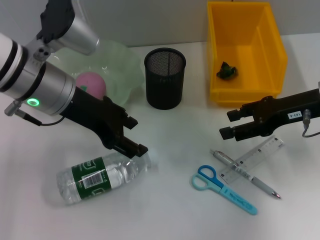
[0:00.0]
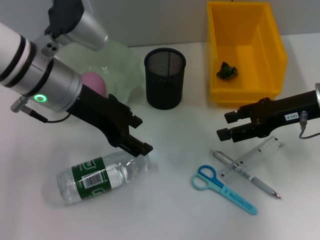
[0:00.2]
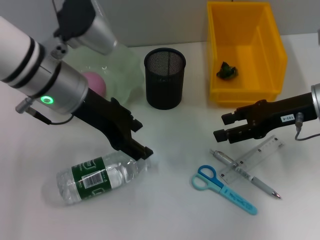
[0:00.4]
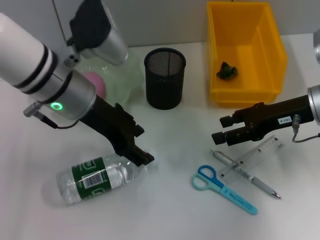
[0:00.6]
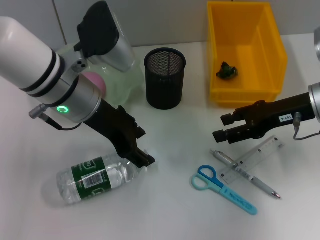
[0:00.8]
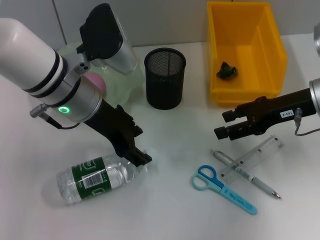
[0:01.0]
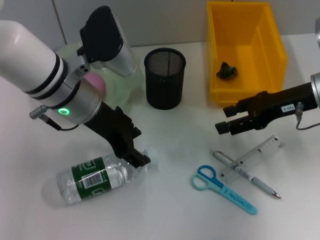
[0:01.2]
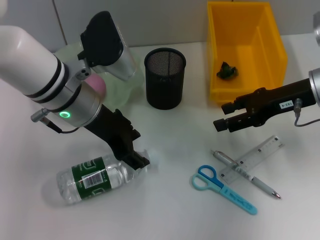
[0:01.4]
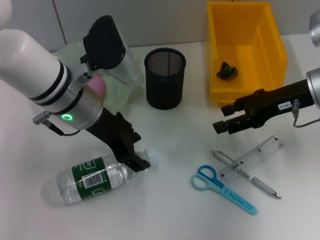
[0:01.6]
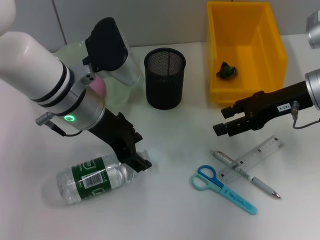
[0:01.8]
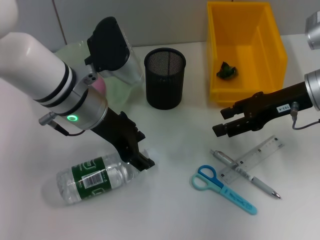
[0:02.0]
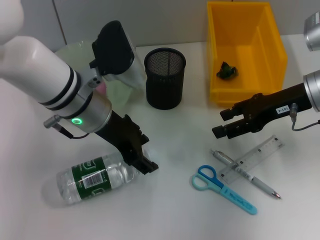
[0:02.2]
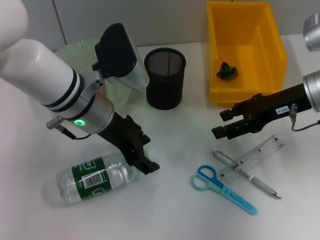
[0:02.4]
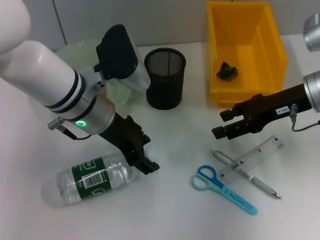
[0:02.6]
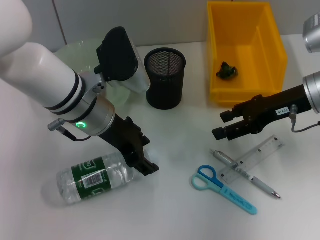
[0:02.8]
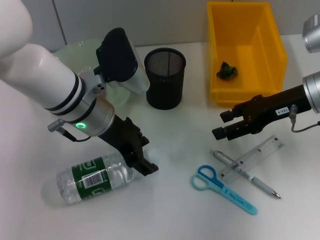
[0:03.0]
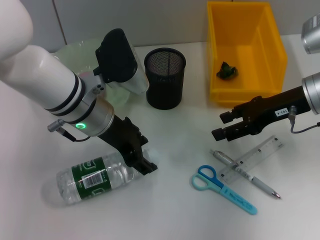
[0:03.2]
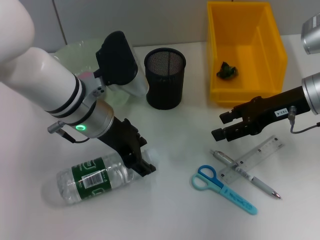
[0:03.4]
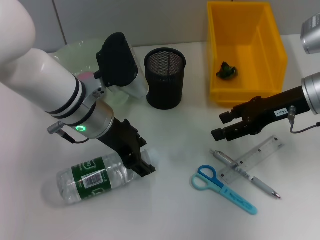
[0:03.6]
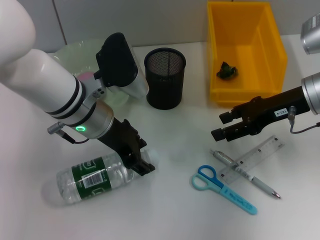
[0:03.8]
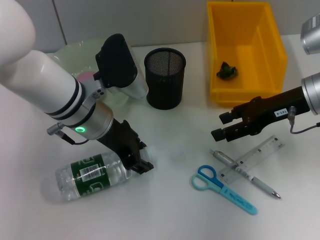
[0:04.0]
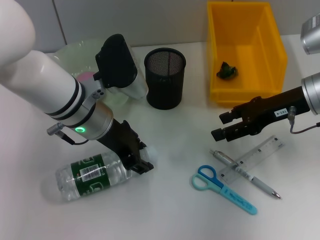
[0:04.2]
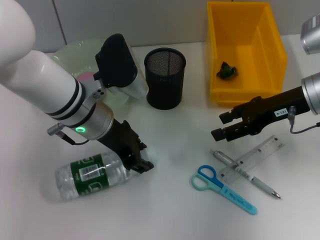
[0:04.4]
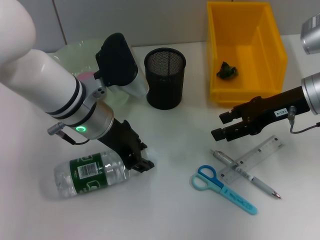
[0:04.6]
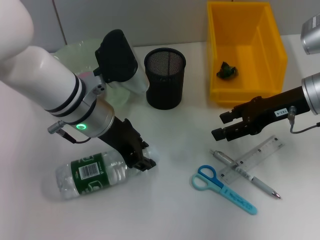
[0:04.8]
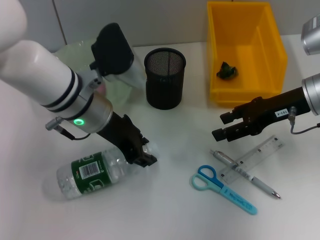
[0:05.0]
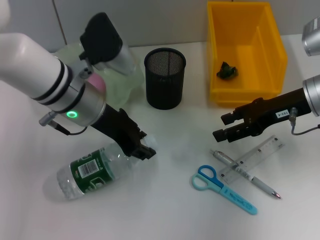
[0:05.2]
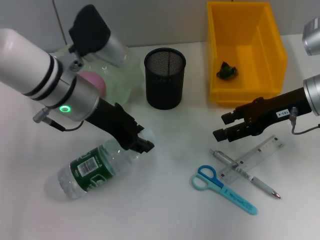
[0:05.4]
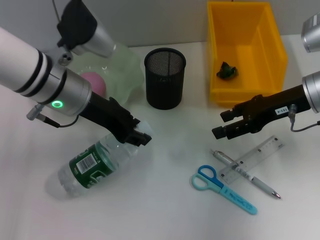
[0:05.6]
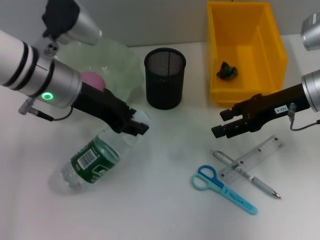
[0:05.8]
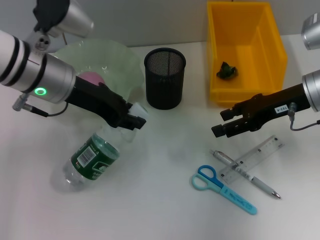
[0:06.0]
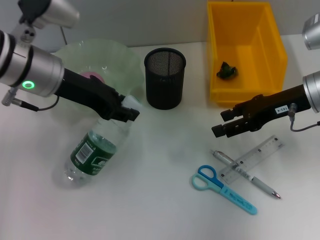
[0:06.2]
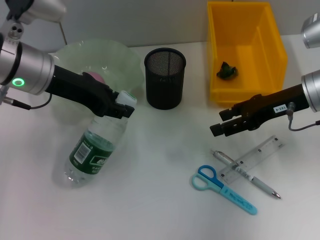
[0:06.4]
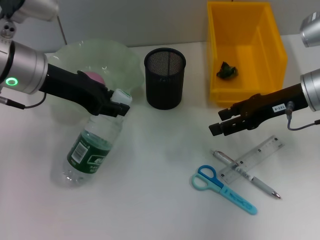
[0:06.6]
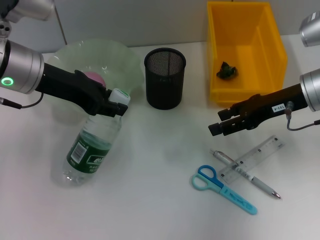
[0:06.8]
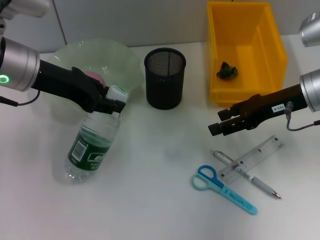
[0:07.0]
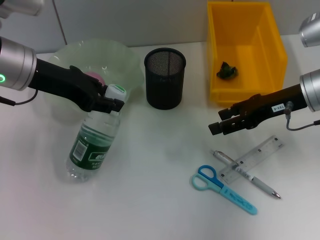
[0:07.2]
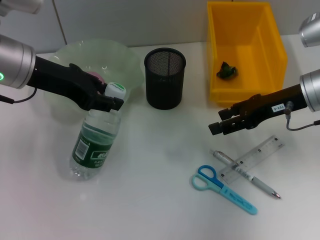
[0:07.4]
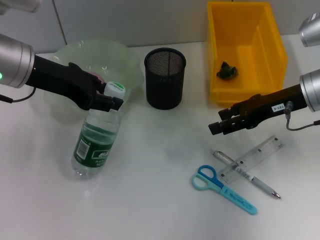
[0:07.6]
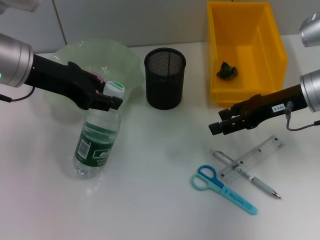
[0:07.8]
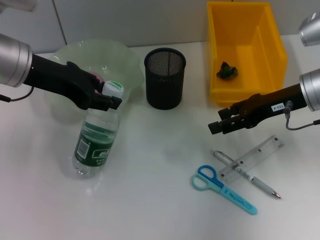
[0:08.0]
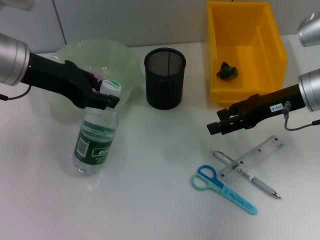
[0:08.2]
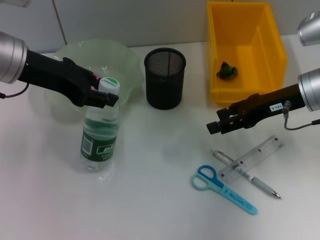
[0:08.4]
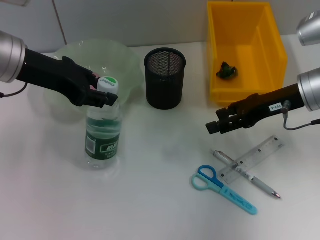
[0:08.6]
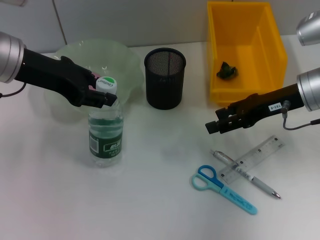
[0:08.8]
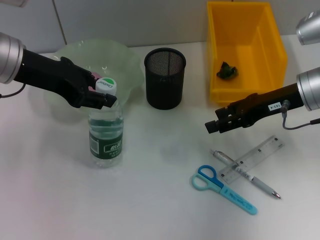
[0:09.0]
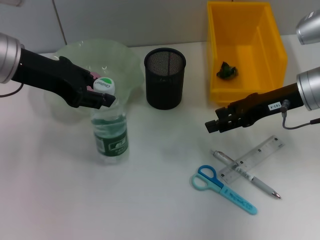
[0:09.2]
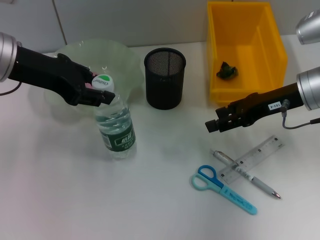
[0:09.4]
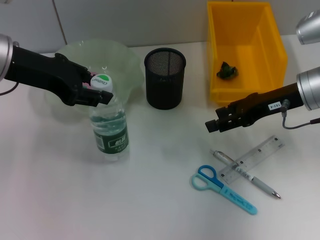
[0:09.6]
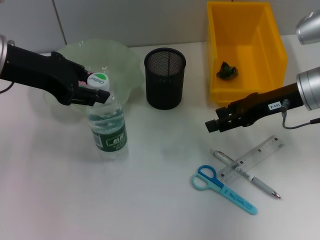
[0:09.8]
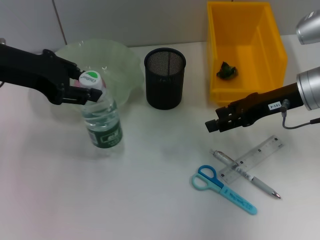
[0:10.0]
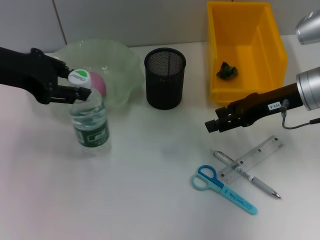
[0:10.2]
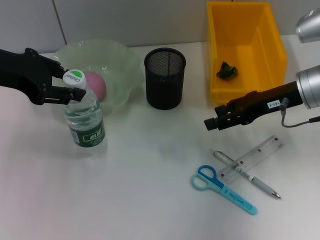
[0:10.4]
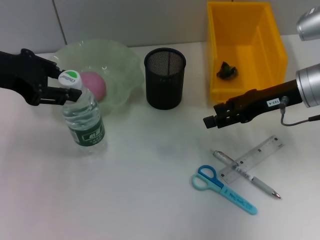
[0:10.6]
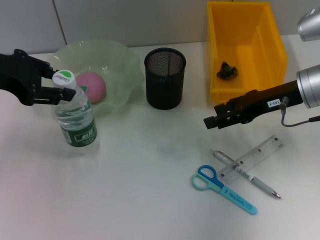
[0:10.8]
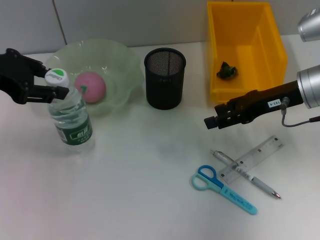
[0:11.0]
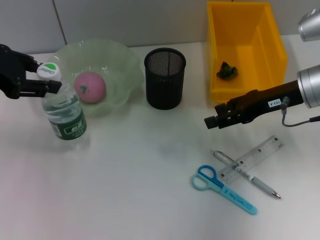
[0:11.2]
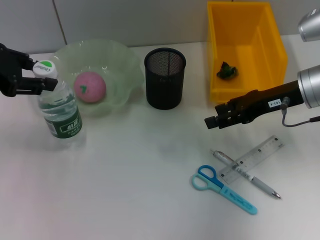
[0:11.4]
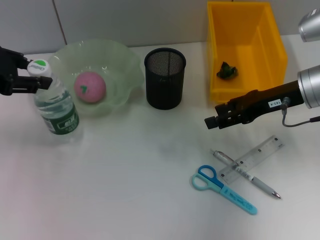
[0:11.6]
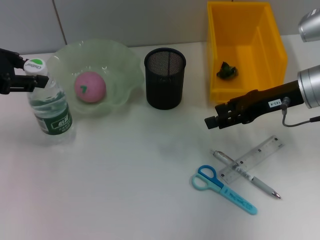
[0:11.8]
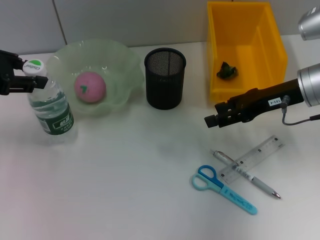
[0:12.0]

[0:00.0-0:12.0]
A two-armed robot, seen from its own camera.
Step, 0:00.0 to 0:04.6: Grab the water bottle with the left hand.
0:00.0 to 0:01.6: The grippers stay close to where they were, moving slightly.
0:01.6 to 0:03.0: There are only small adjustments of the grippers.
0:03.0 to 0:04.4: The left gripper closes up.
0:04.4 to 0:06.0: The left gripper travels to the left by roughly 5 cm.
0:06.0 to 0:07.6: The left gripper changes place by some 5 cm.
0:07.6 to 0:10.4: The grippers move only a little.
0:10.4 to 0:12.0: The grippers move only a little.

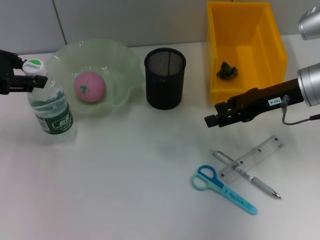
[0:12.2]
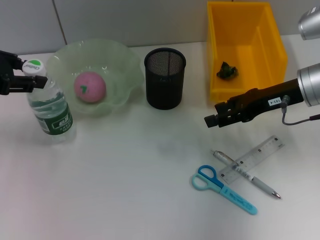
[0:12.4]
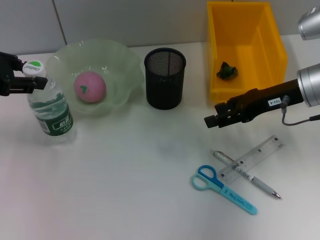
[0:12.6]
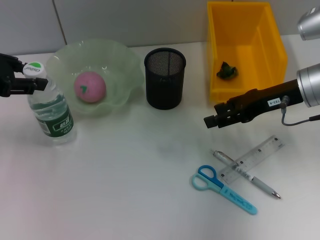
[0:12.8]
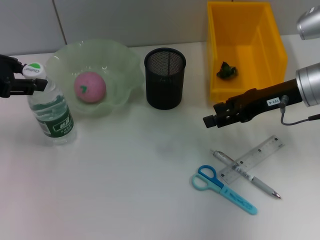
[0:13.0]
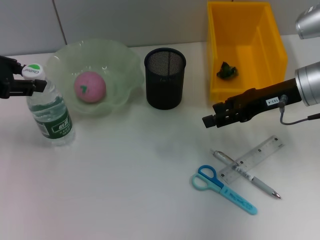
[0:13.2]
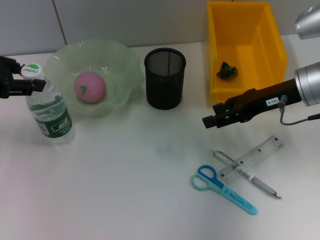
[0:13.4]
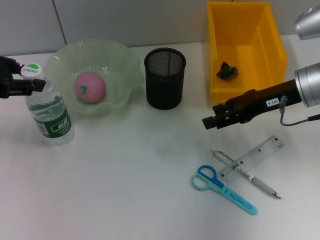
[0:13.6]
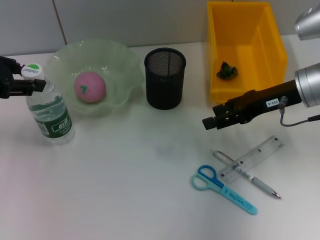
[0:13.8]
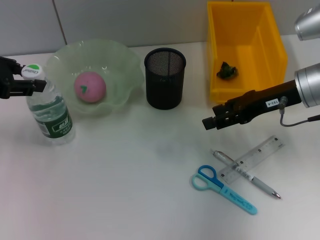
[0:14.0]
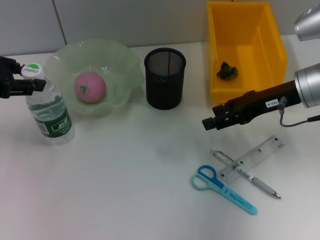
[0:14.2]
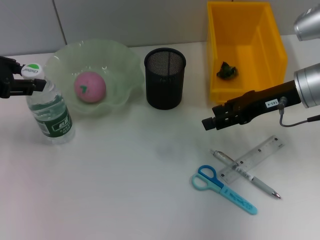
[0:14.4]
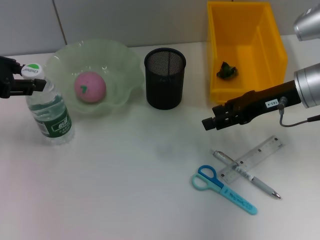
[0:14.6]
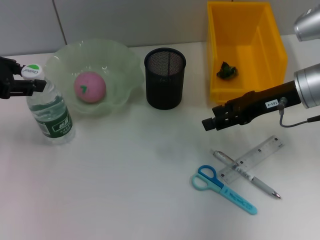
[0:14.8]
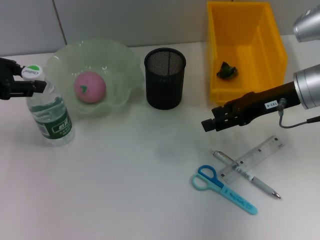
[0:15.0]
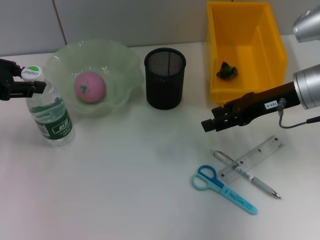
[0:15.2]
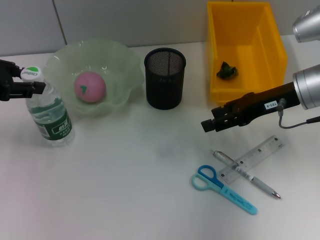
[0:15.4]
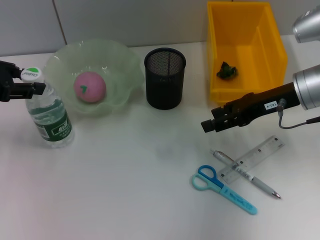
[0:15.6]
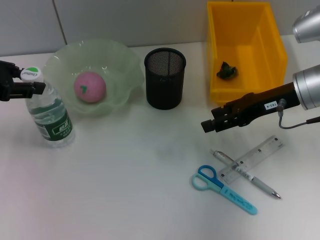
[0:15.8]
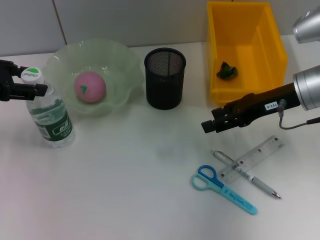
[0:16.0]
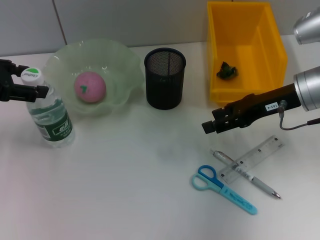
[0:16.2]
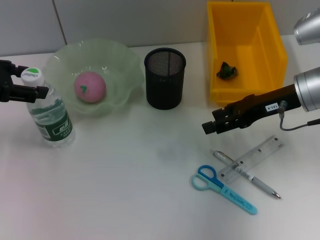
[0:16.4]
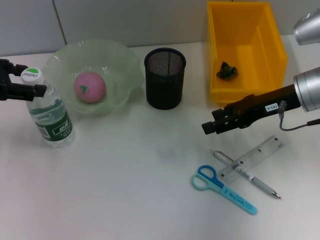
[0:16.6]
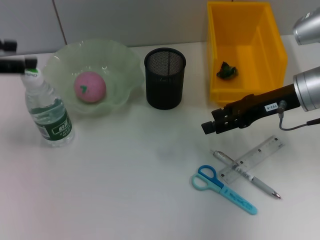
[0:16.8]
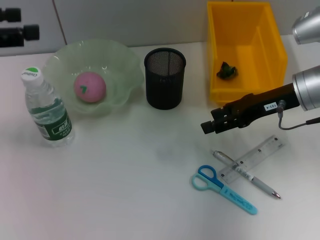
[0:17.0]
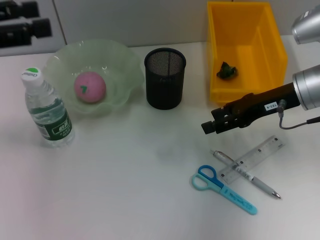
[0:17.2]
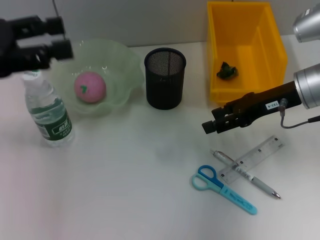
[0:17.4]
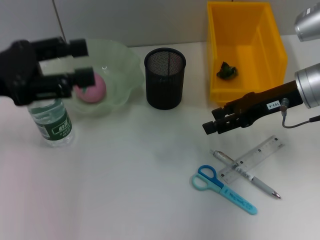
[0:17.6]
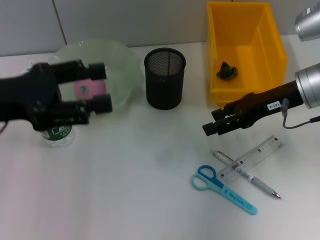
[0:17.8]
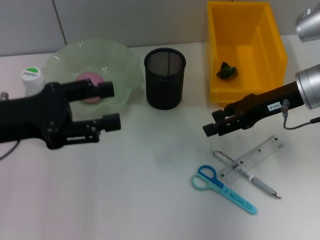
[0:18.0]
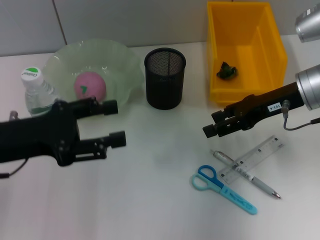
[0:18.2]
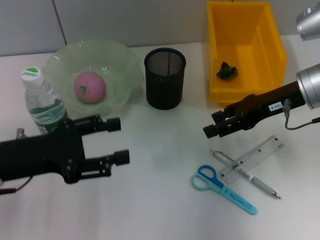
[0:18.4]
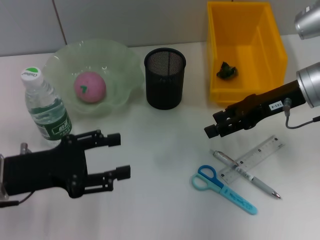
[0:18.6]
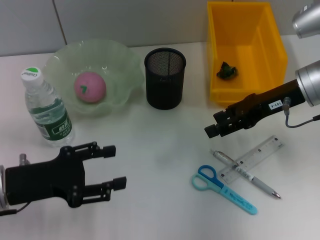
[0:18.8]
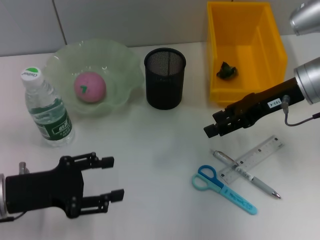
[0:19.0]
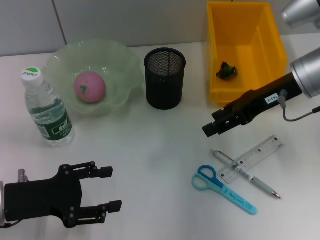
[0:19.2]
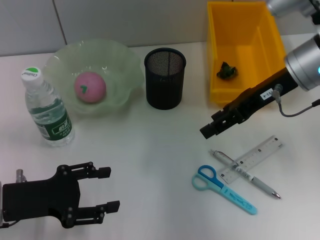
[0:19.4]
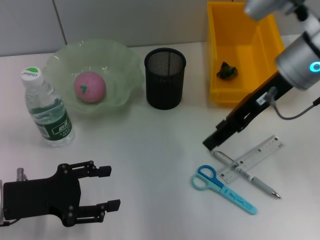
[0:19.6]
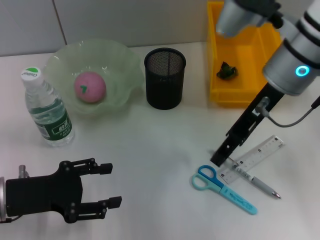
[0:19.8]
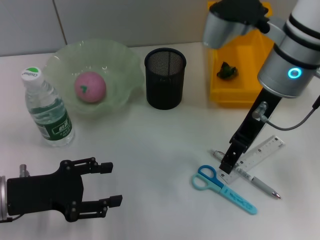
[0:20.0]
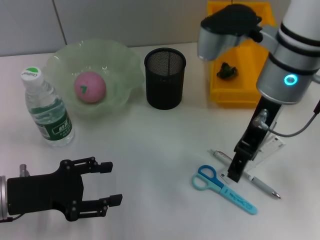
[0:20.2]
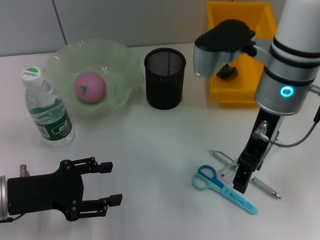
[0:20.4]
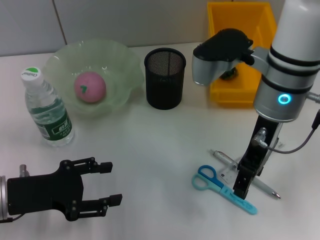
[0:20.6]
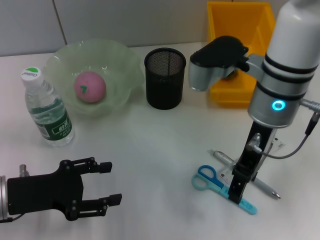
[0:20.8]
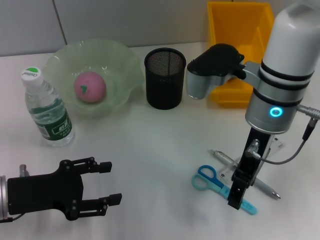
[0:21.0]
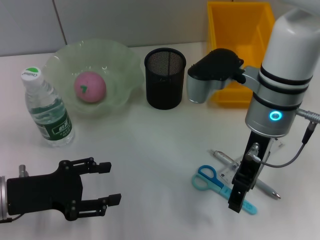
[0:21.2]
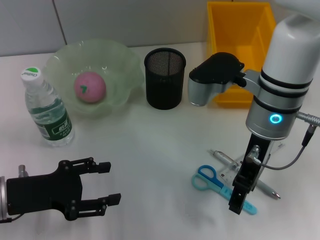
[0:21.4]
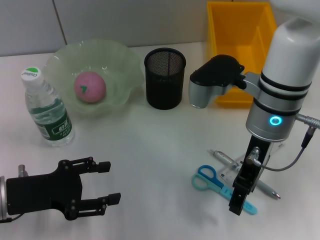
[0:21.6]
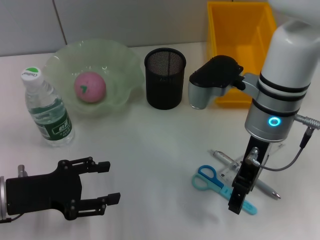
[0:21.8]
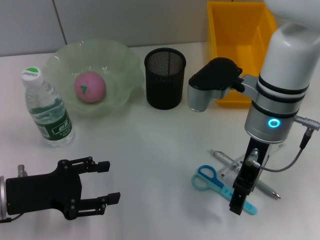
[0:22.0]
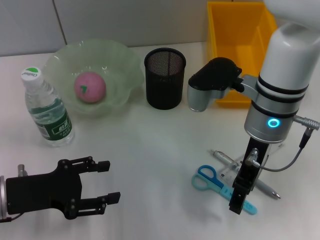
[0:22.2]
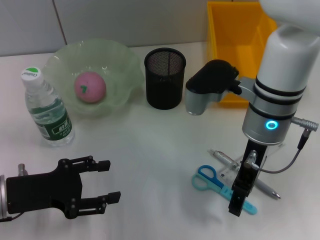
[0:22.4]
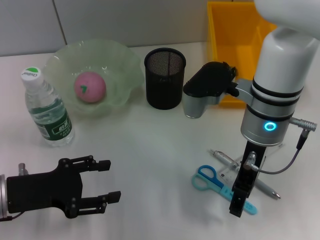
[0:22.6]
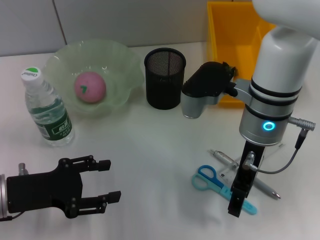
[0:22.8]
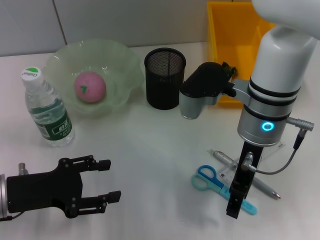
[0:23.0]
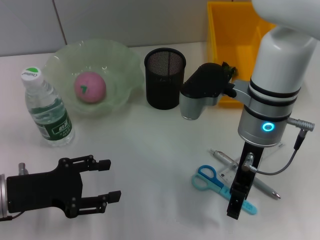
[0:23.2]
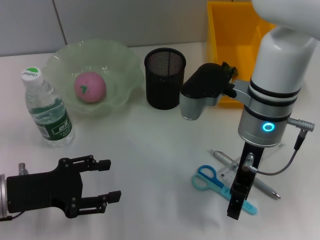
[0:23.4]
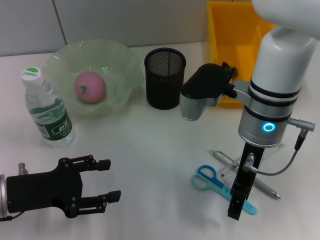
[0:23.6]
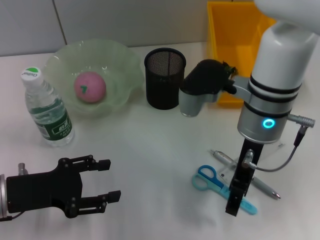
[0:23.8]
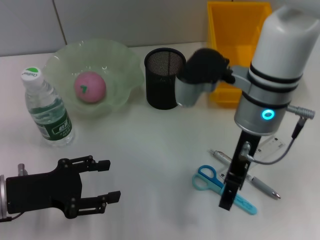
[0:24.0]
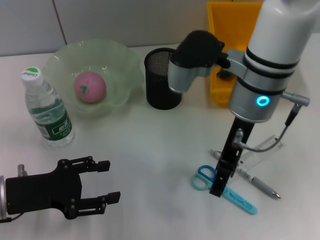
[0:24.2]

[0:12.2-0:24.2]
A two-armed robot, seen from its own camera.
Step, 0:12.2 to 0:16.6: Place the water bottle on the table with the left hand.
0:12.2 to 0:13.8: The two grippers keep their place.
0:13.8 to 0:16.6: Both grippers stay about where they are.
0:16.6 to 0:18.2: The left gripper travels backward, downward and to the right by about 10 cm.
0:18.2 to 0:19.8: The right gripper is displaced to the left and upward by roughly 10 cm, while the left gripper travels downward by roughly 5 cm.
0:19.8 to 0:21.2: The right gripper goes some 5 cm downward.
0:21.2 to 0:24.2: The grippers move only a little.
